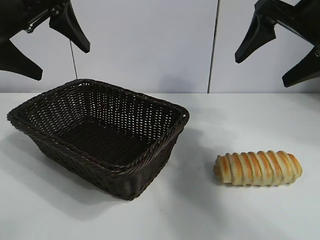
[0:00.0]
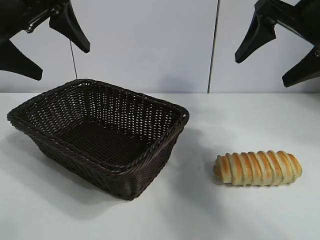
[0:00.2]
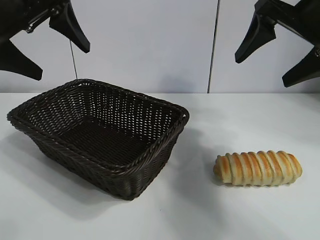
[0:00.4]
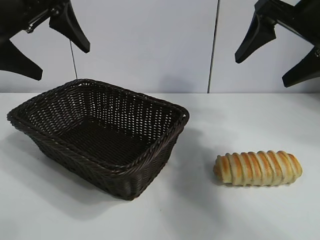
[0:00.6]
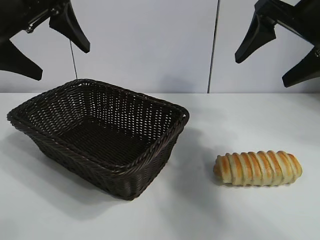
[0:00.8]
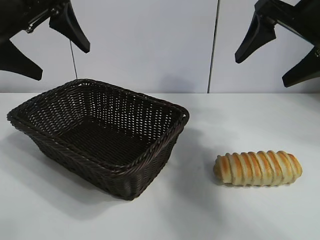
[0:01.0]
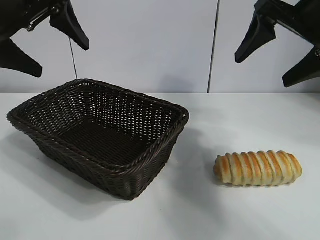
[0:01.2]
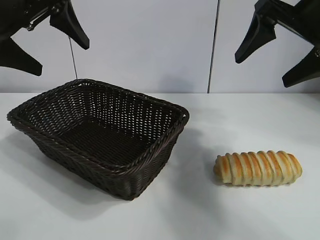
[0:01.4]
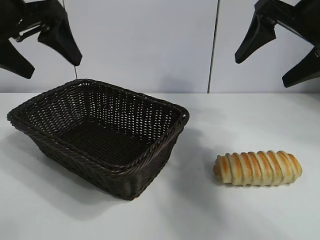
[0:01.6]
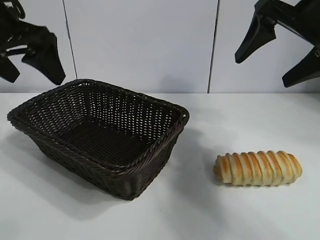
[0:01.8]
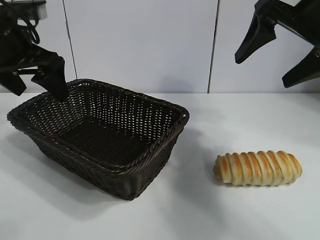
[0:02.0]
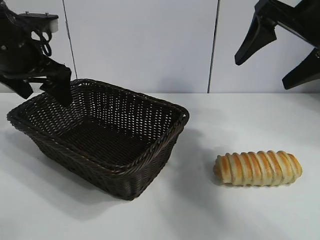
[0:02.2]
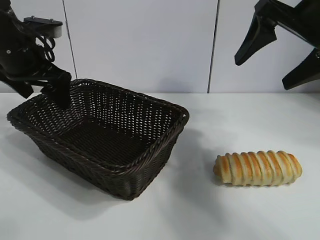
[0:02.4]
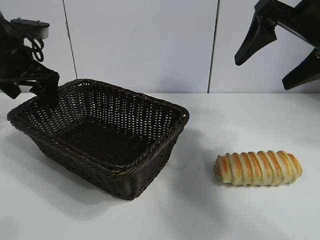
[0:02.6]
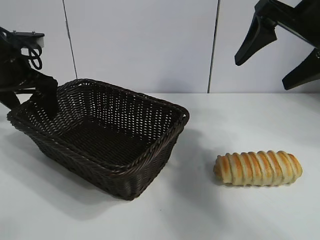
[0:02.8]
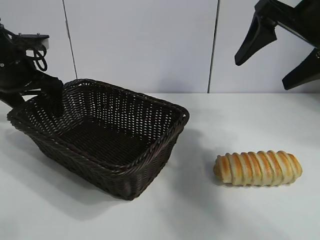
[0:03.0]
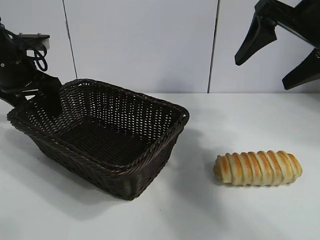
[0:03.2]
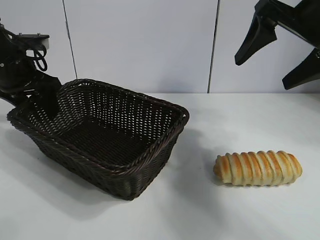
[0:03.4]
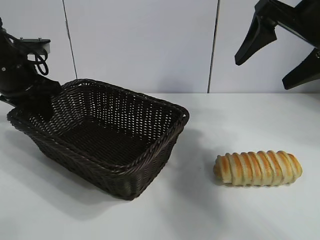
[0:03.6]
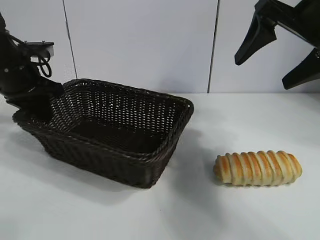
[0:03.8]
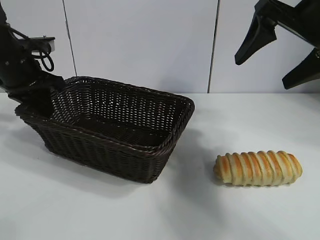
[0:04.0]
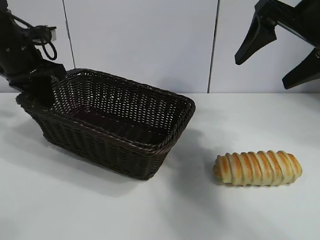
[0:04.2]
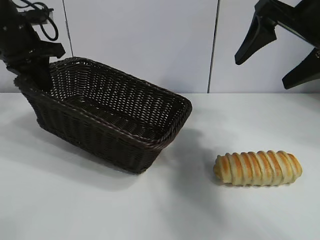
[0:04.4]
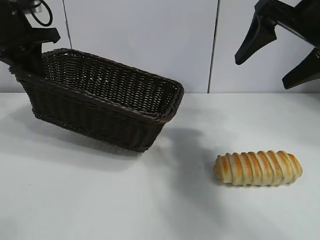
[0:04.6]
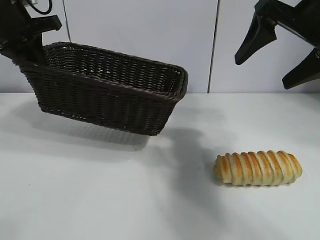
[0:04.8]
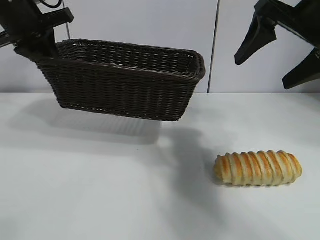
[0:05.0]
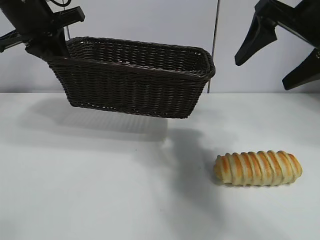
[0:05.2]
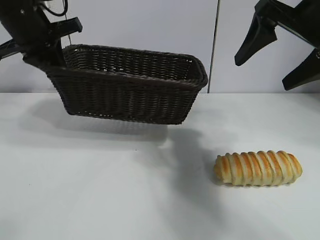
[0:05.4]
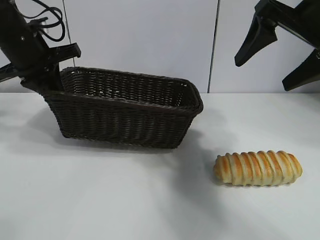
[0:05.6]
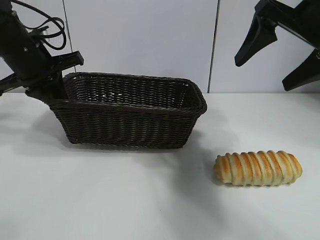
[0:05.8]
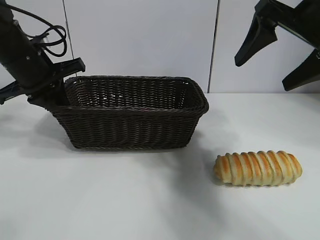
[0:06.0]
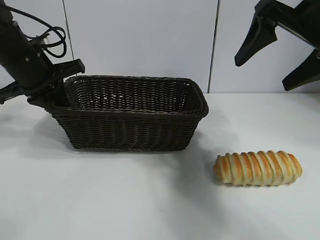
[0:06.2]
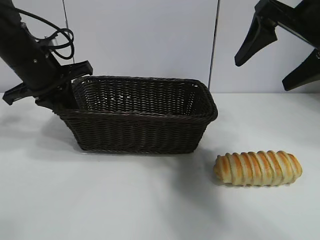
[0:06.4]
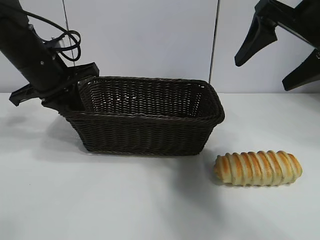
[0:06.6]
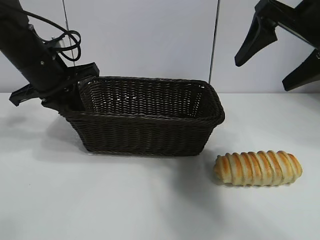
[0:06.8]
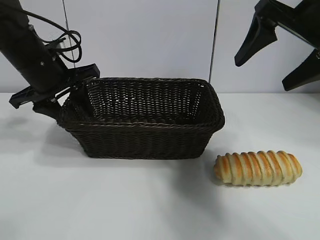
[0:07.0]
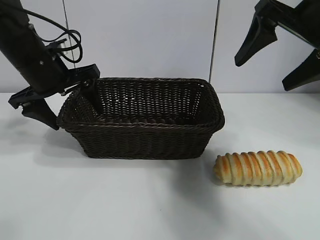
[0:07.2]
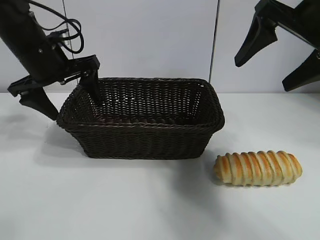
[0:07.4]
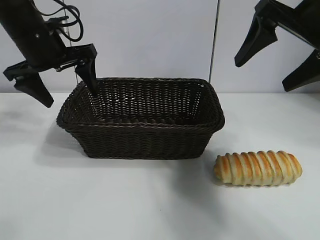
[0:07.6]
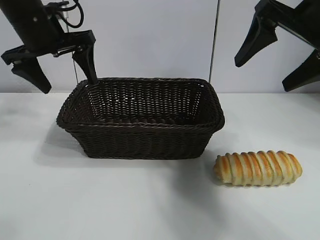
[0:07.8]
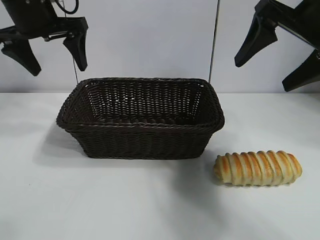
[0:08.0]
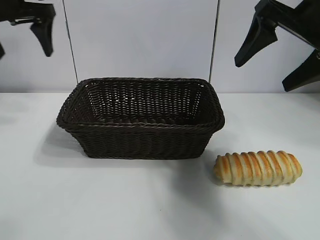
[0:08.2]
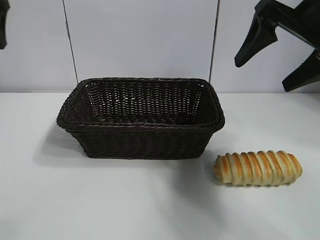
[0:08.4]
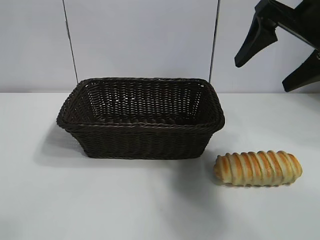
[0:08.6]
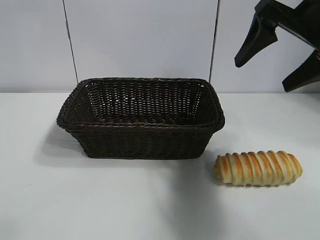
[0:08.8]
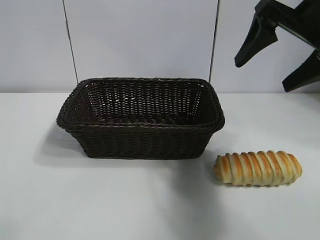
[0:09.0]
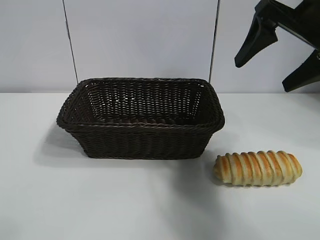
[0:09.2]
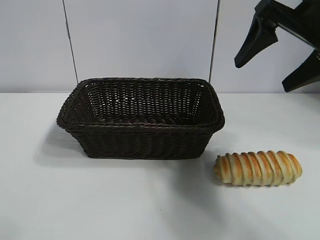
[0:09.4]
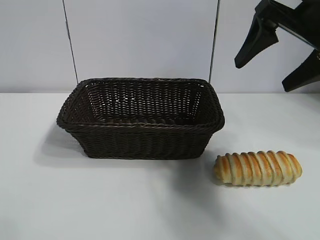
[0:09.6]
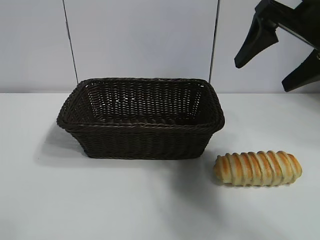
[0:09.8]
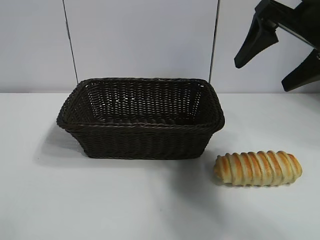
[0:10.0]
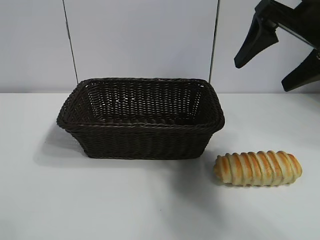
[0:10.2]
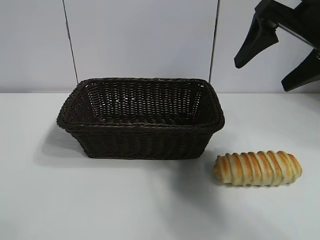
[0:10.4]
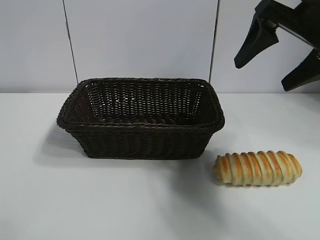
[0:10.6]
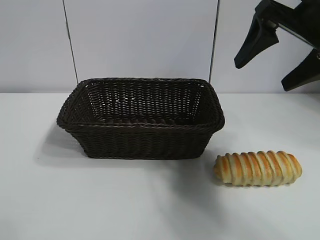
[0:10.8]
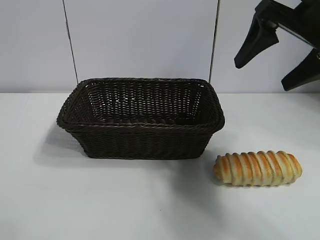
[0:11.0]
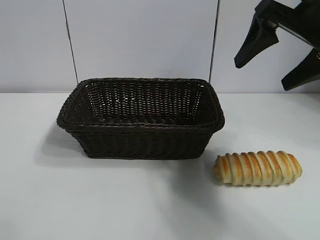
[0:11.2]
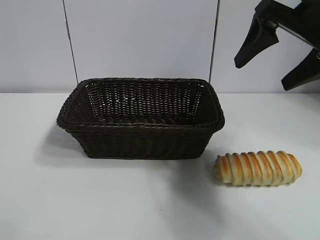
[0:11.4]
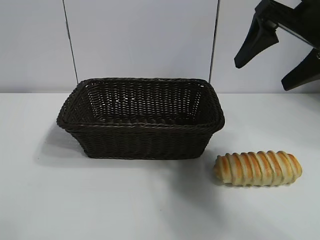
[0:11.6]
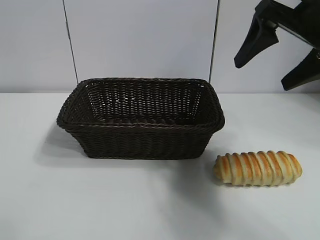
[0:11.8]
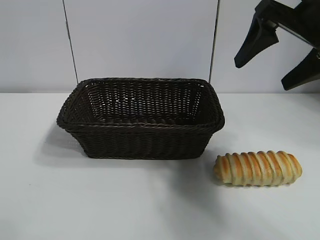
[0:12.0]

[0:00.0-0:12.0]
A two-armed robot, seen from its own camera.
Task of the whole recording: pick up the long bread and put it into the basket.
Step, 0:01.4 to 0:03.6: Grasp the basket with the left gripper.
Step, 0:04.0 to 0:07.8: Place the basket in the center of the table with the left gripper.

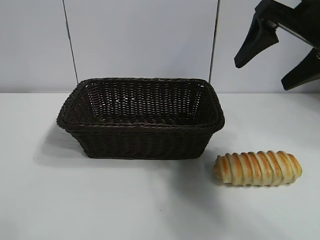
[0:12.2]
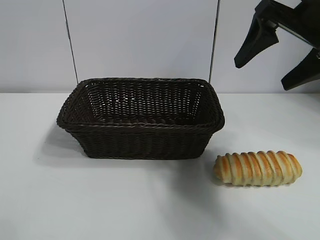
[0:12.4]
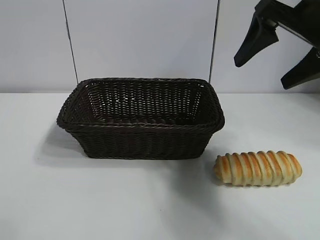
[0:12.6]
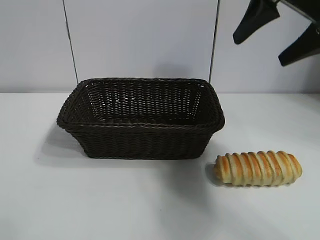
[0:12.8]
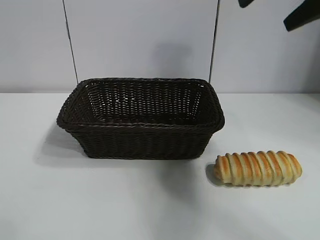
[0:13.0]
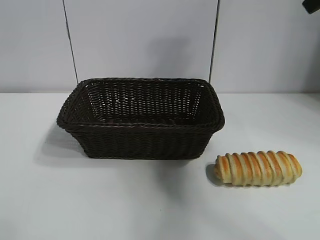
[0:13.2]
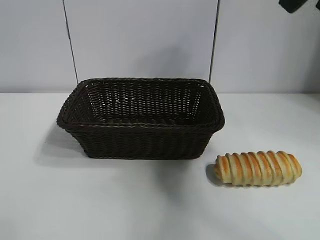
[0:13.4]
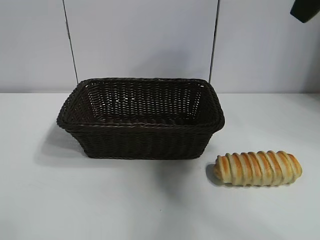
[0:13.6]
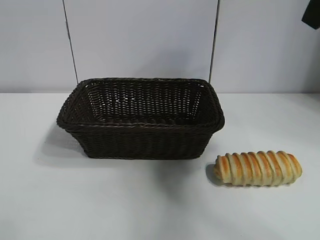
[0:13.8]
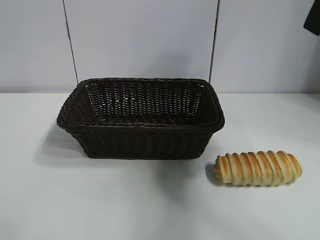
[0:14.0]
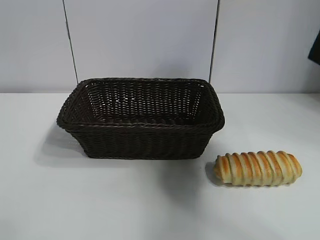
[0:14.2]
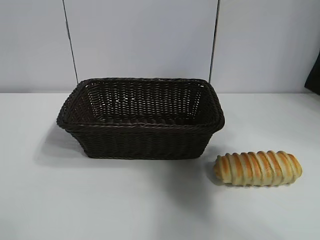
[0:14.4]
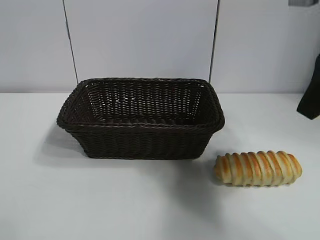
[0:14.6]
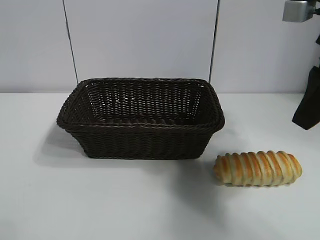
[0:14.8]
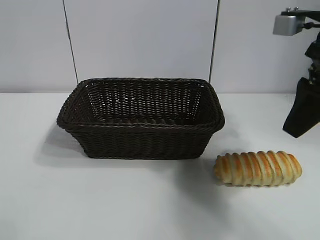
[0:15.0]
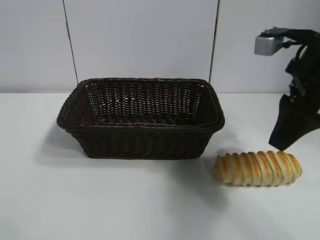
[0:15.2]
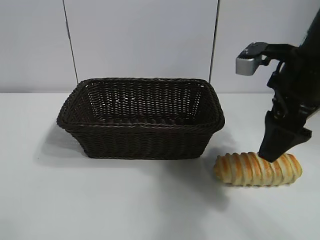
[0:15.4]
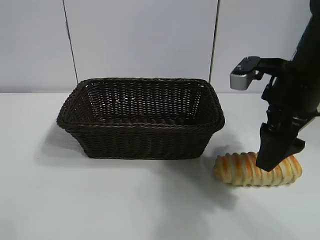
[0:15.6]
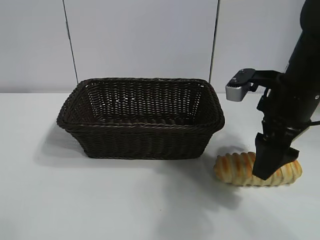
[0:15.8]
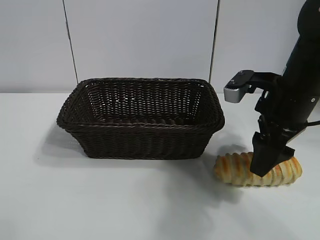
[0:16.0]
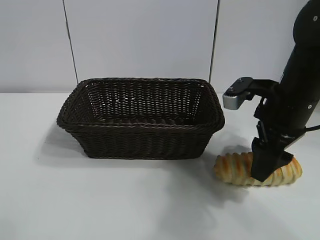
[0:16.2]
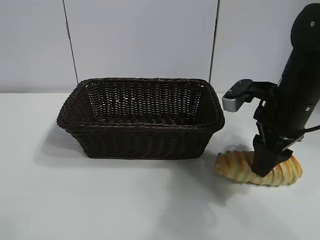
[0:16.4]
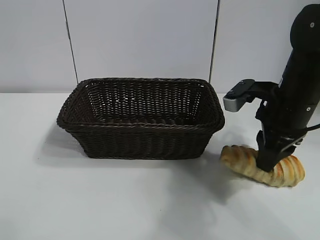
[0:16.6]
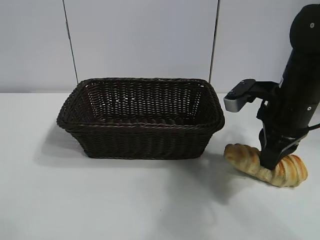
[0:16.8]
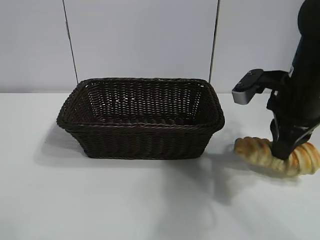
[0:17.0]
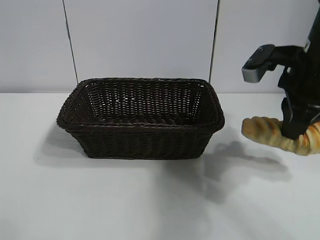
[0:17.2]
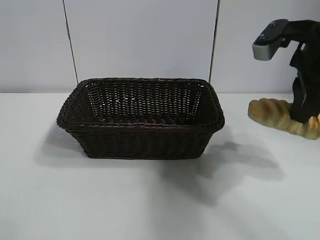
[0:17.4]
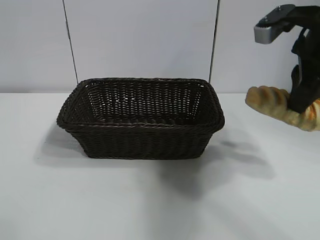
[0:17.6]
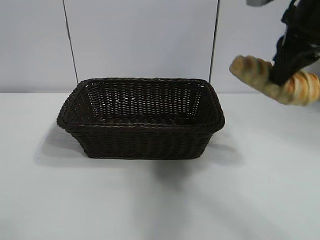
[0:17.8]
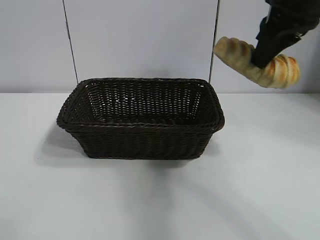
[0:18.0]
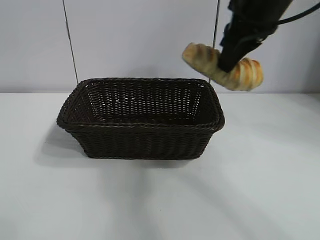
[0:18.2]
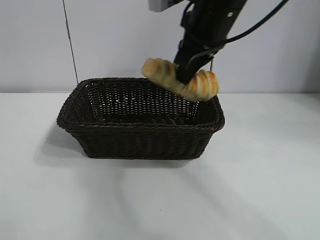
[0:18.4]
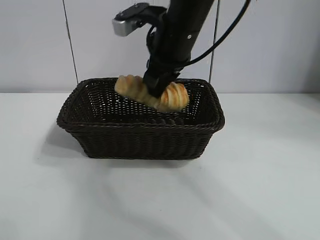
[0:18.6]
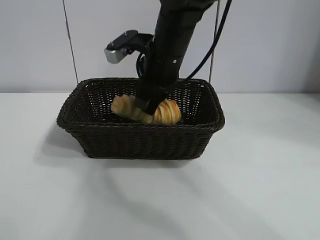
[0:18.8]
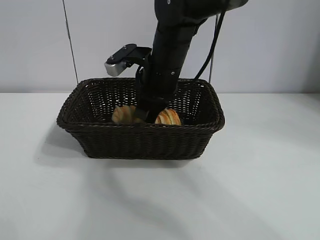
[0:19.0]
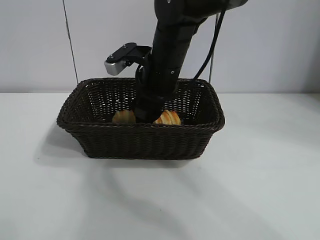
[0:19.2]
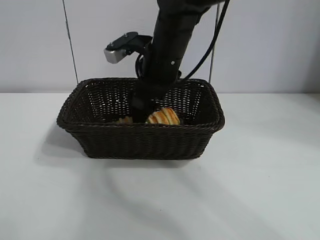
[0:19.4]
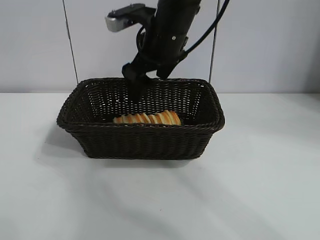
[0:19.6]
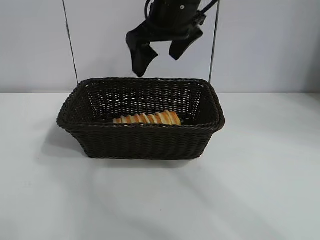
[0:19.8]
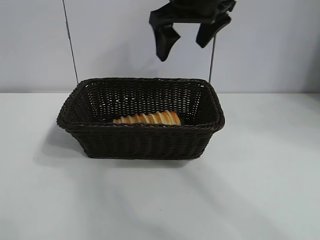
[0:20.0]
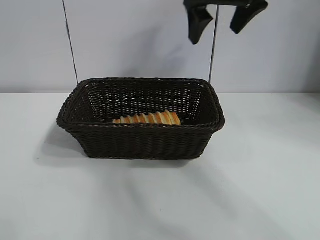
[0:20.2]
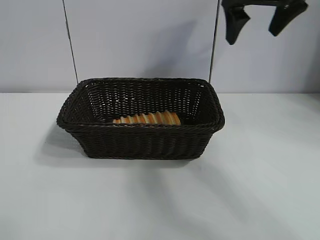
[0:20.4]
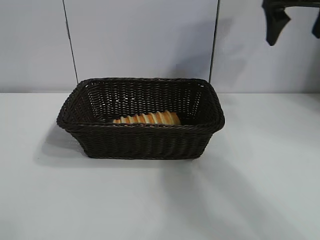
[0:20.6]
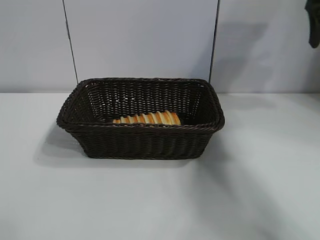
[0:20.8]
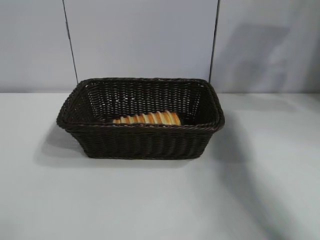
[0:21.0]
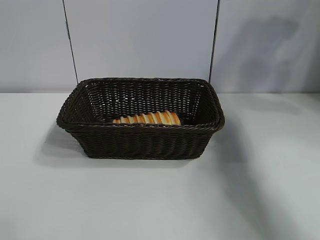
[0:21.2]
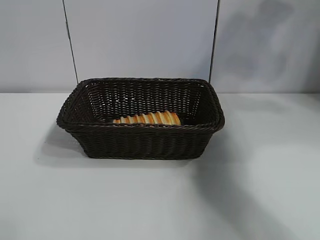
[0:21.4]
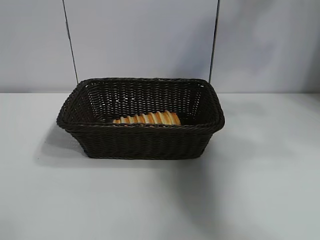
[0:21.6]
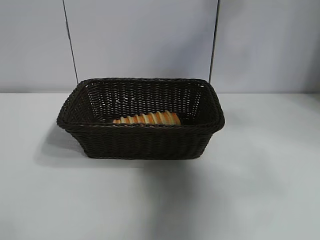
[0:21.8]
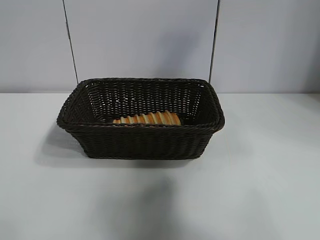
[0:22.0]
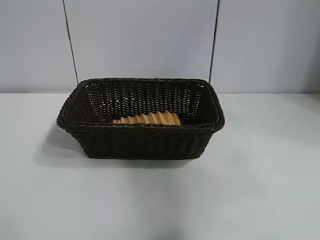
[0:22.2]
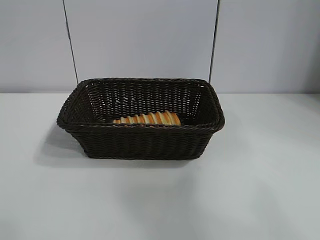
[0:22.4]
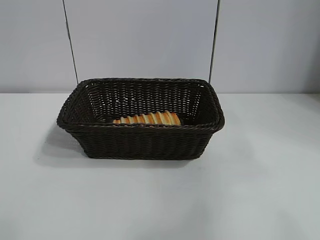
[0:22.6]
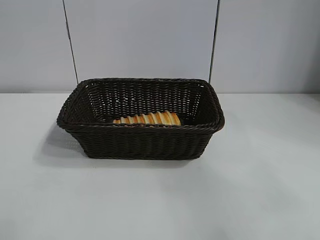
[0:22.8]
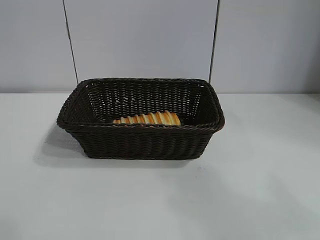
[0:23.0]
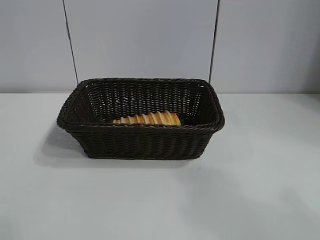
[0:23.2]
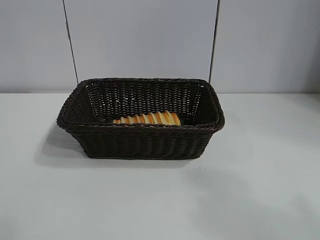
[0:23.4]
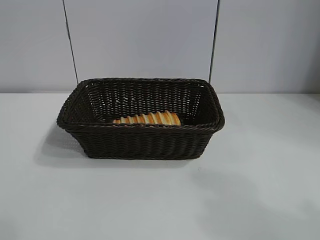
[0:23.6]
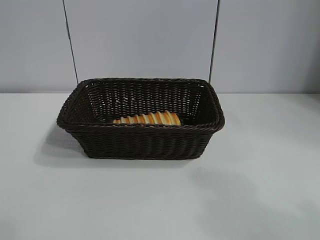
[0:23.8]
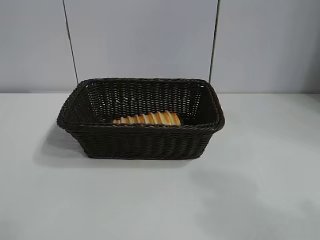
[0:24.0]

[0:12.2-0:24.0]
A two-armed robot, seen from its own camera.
Task of the whole recording: pick up the long bread and put it into the basket.
Step, 0:12.8 to 0:16.0: Grasp the long bread with right gripper.
Step, 0:16.2 to 0:19.0: Place the long bread in the basket with right gripper.
